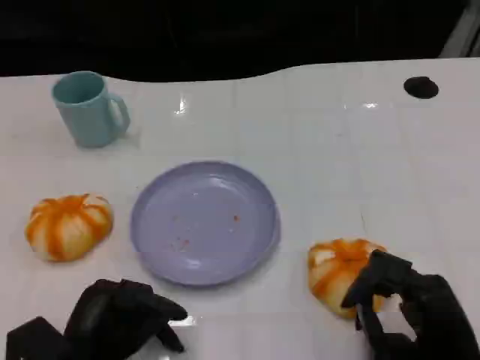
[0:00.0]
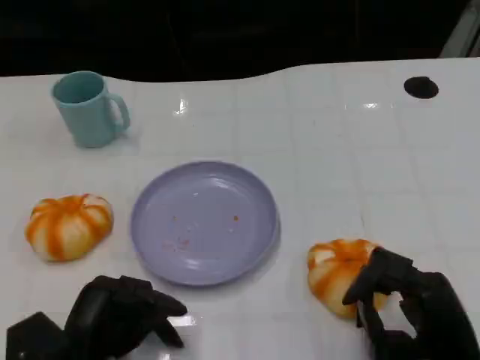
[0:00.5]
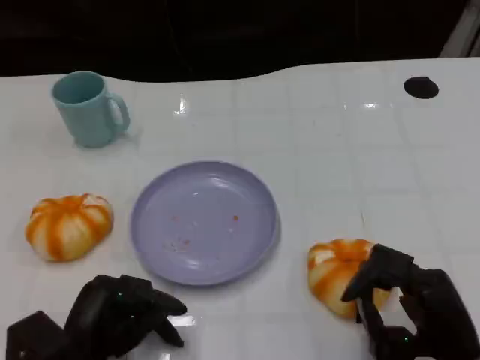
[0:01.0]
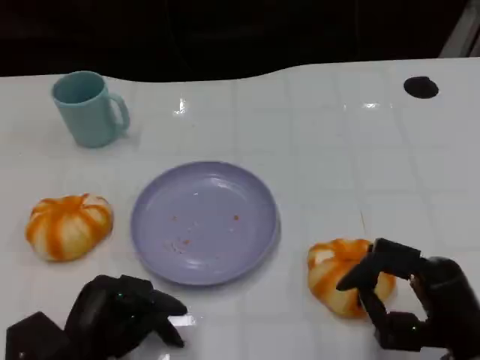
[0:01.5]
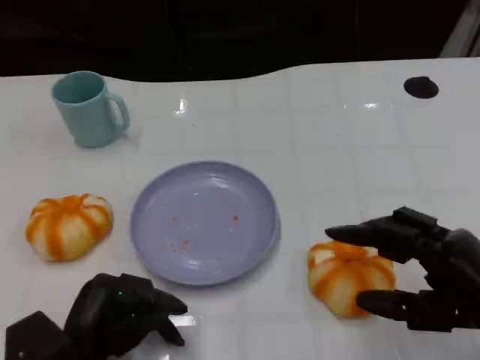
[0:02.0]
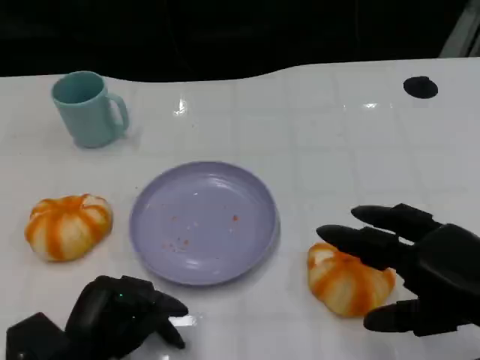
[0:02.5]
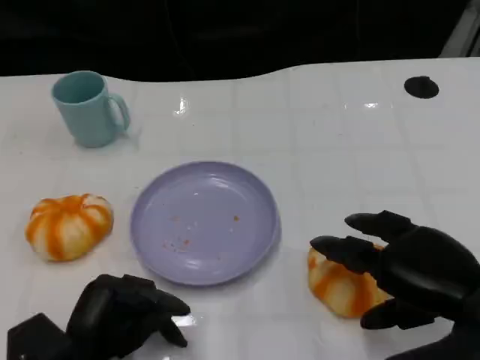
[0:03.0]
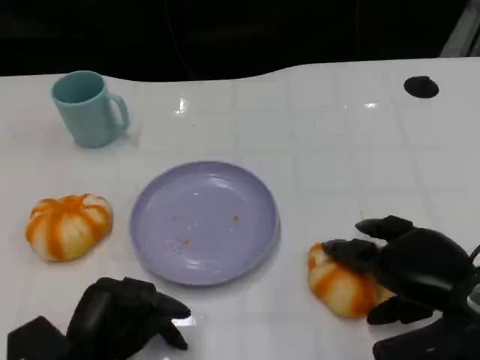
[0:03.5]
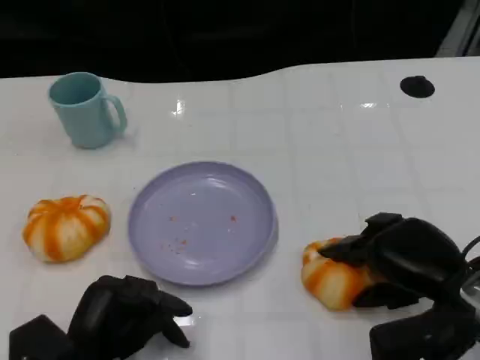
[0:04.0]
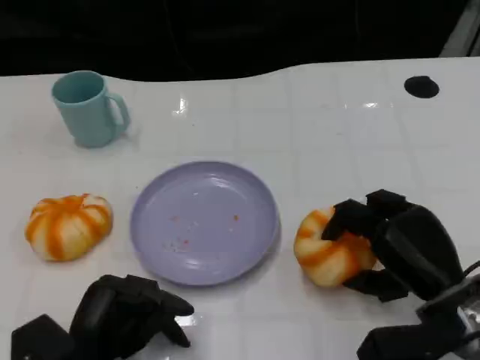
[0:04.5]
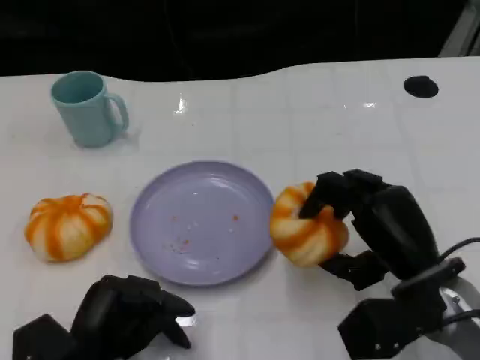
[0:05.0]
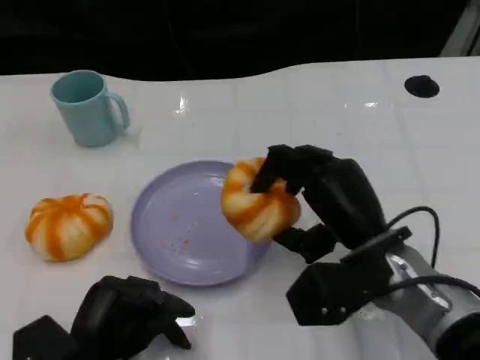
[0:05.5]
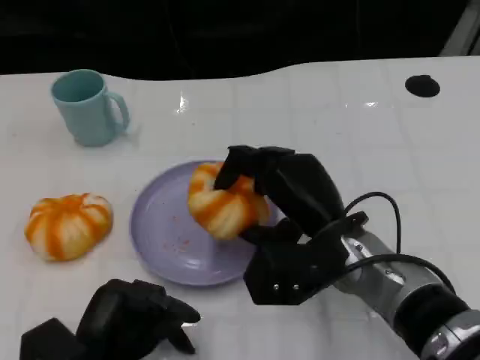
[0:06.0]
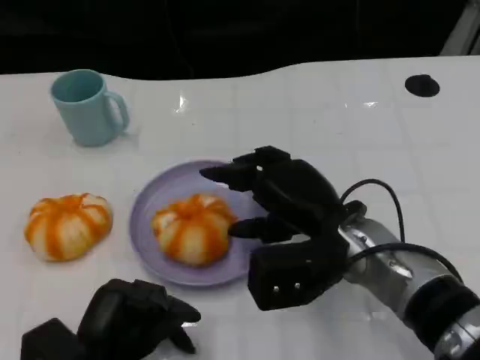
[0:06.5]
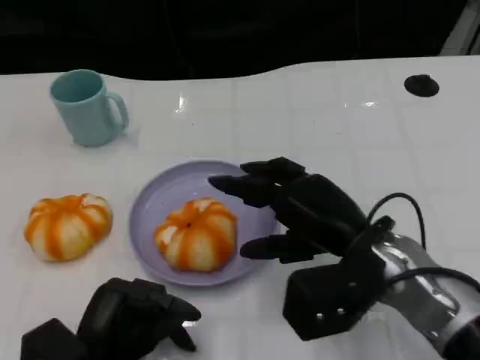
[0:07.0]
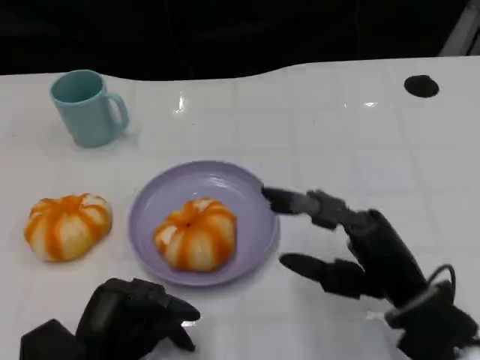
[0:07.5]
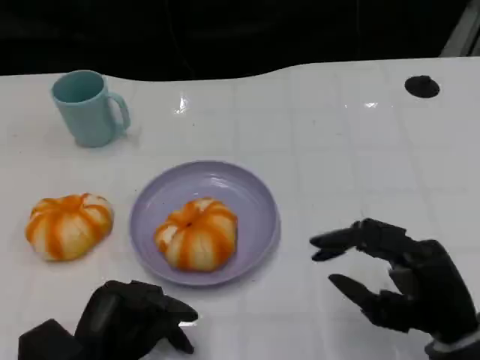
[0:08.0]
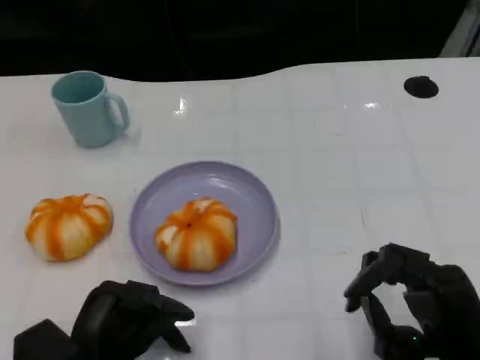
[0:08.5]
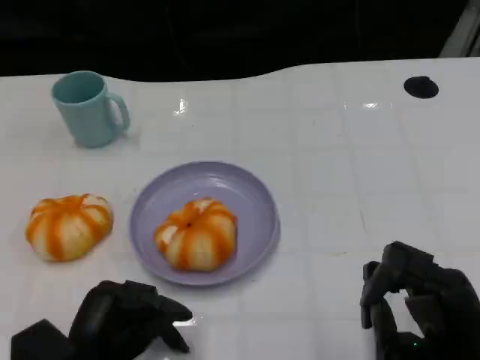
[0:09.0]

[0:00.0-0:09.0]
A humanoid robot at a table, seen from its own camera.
Task of the whole recording: Grasp the bread from the table and place it into the plate.
0:00.0 to 0:02.0: The right hand goes about 10 cm upward.
0:02.0 to 0:04.5: The right hand is displaced downward and forward by approximately 10 cm.
0:04.5 to 0:07.0: The right hand moves to the left and upward, about 10 cm.
0:07.0 to 0:09.0: The right hand heads backward, to the right and downward, covering about 15 cm.

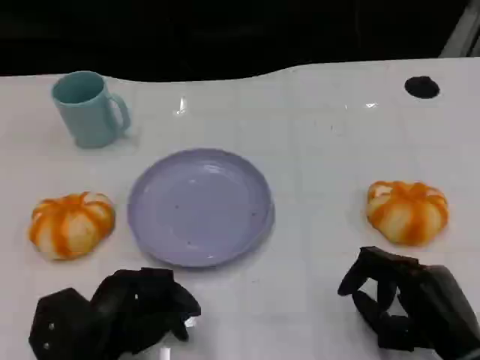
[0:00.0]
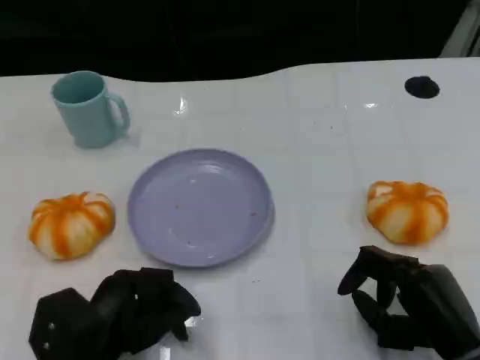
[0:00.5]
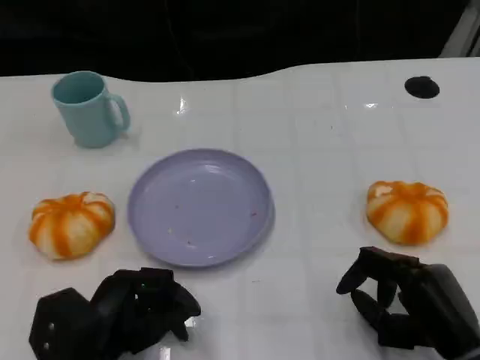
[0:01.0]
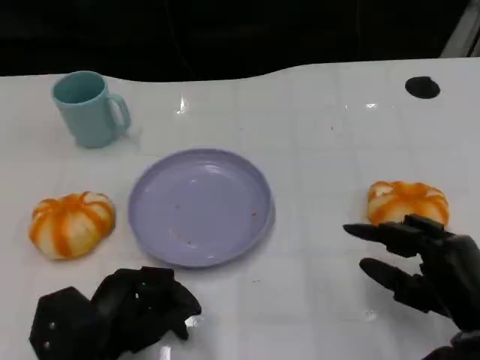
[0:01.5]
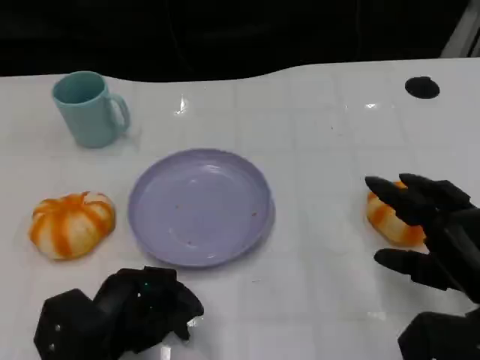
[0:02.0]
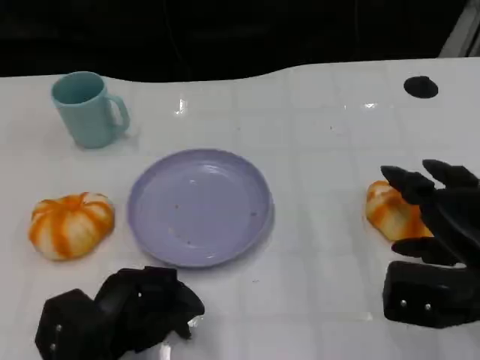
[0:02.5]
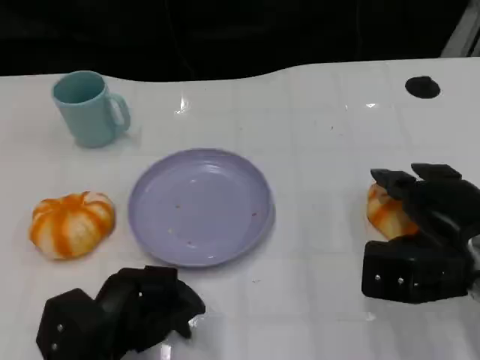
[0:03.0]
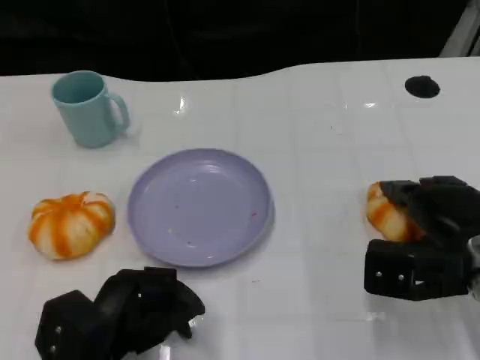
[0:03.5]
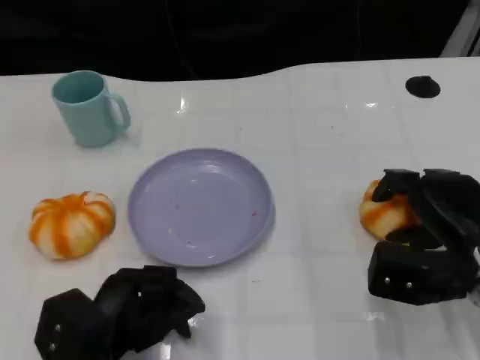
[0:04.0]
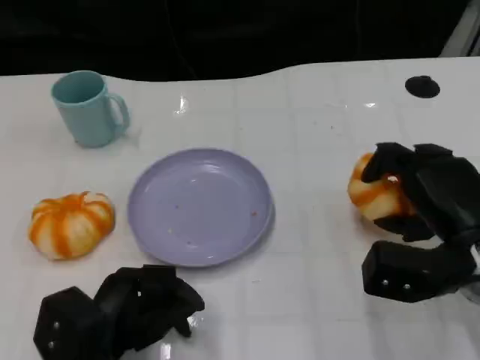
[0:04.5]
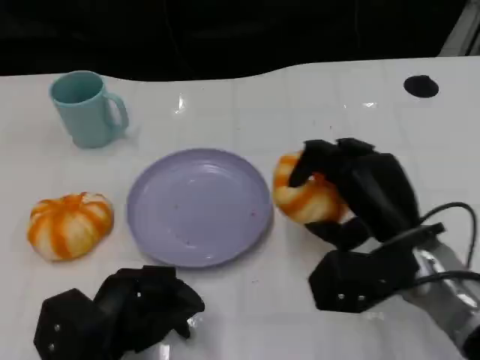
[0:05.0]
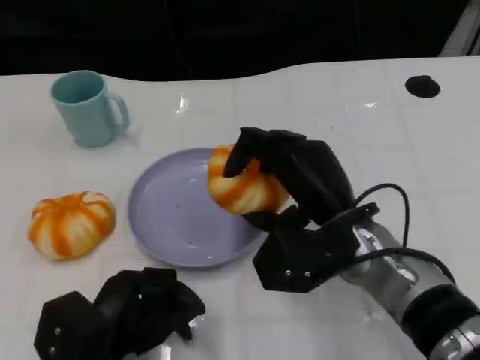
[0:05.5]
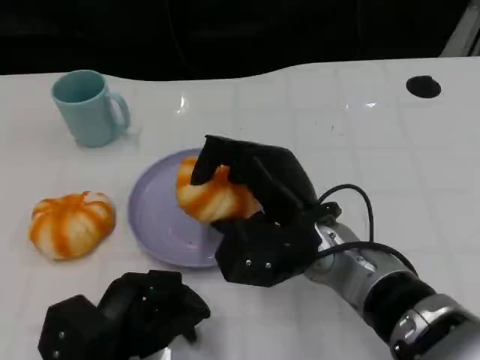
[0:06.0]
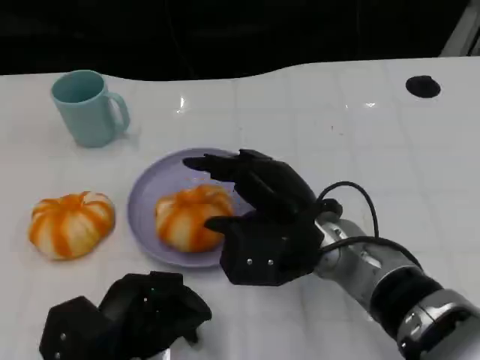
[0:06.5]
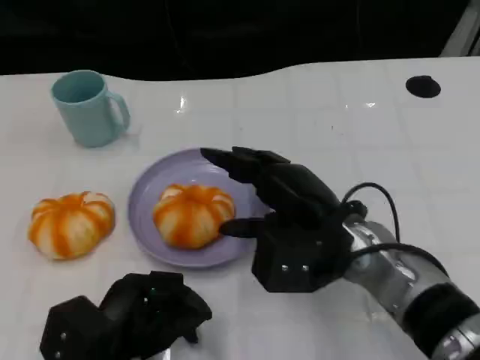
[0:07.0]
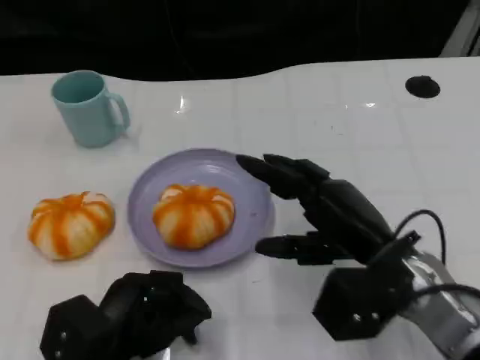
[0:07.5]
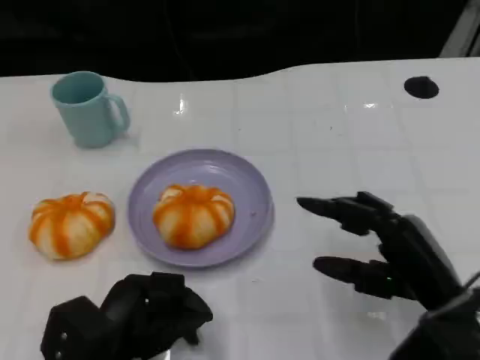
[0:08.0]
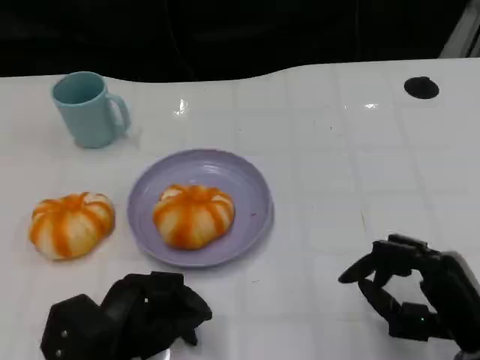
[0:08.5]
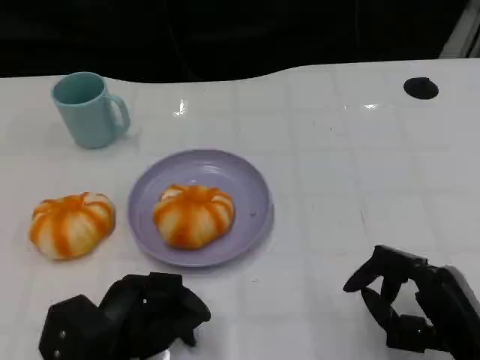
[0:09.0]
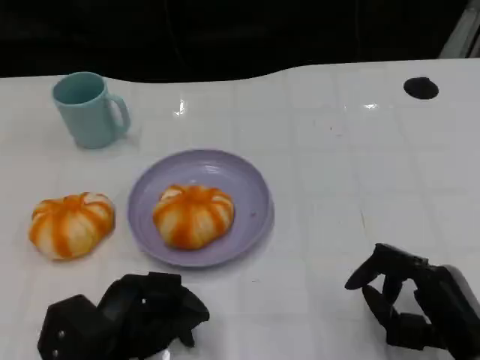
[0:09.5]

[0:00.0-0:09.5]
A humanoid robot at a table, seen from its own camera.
Task of the whole recording: Grasp the bread from the table and place it into the plate.
0:00.0 to 0:02.0: The right hand moves roughly 5 cm.
0:02.0 to 0:04.0: The right hand goes roughly 5 cm forward.
0:04.0 to 0:05.5: The right hand goes about 15 cm to the left.
0:05.5 to 0:07.5: The right hand is displaced to the right by some 5 cm.
0:07.5 to 0:09.5: The right hand goes some 10 cm backward, to the right and downward.

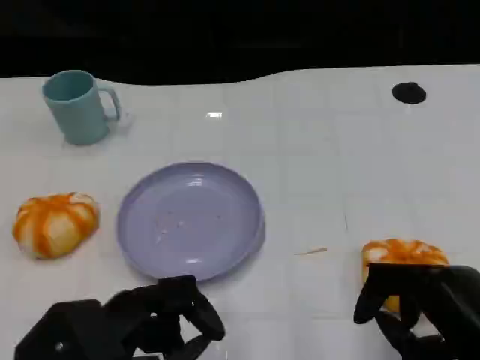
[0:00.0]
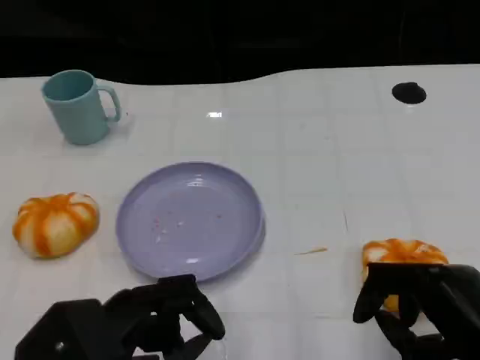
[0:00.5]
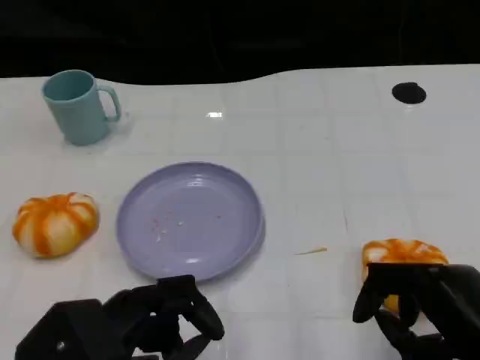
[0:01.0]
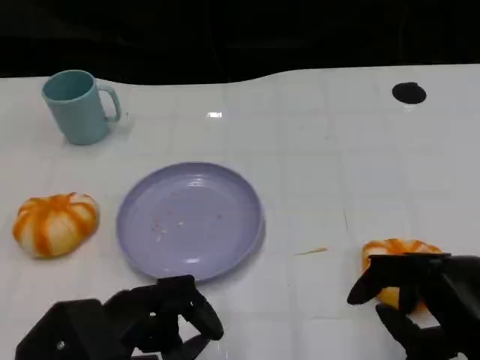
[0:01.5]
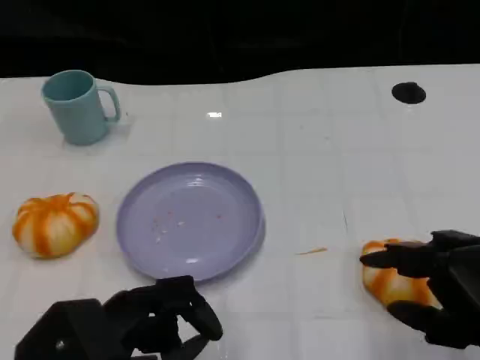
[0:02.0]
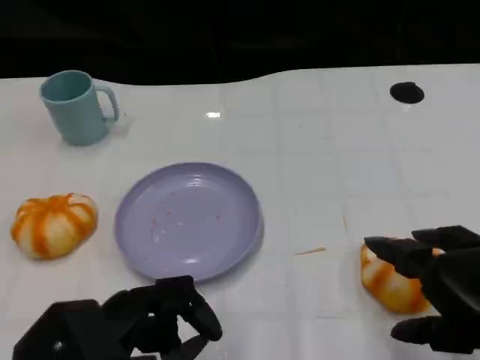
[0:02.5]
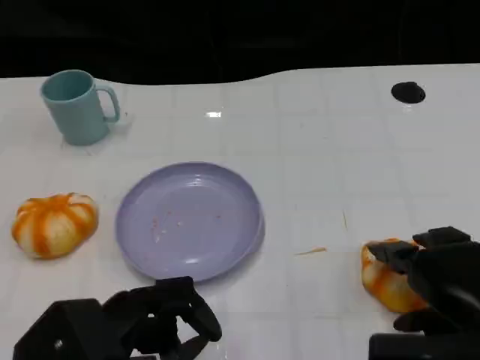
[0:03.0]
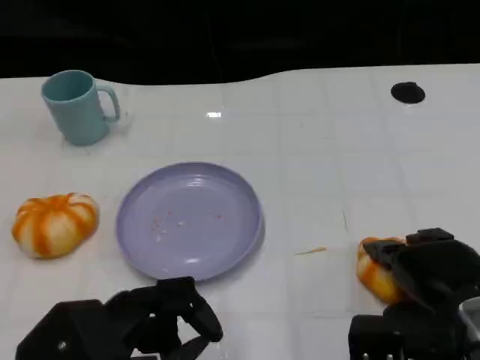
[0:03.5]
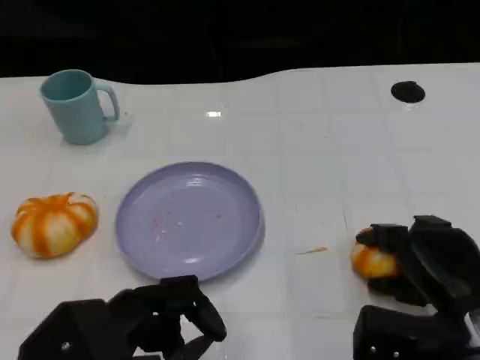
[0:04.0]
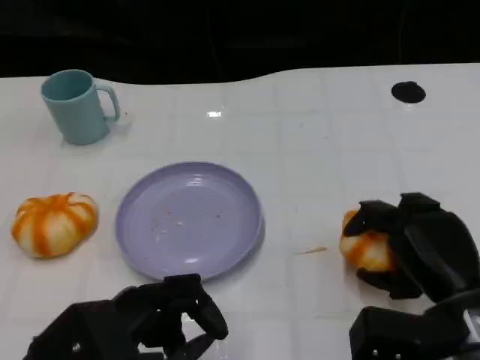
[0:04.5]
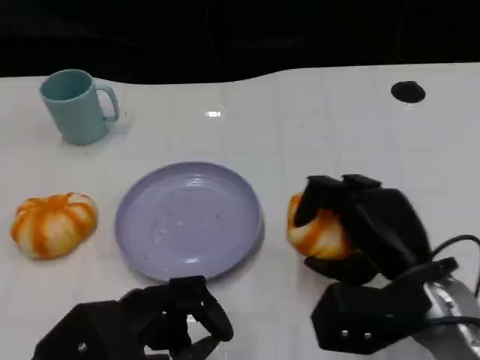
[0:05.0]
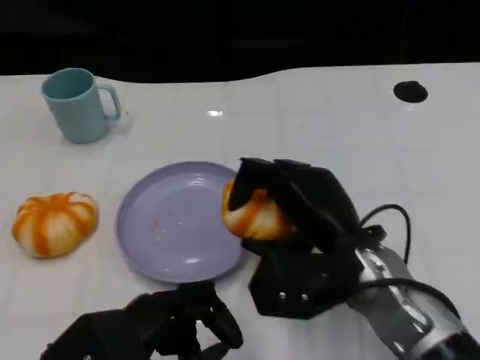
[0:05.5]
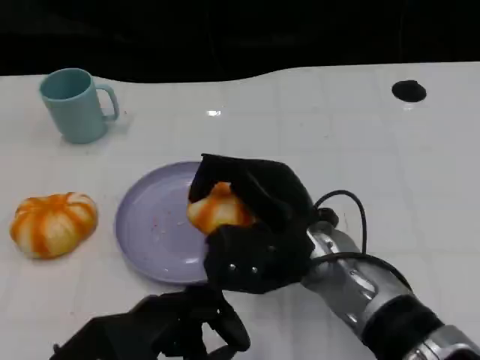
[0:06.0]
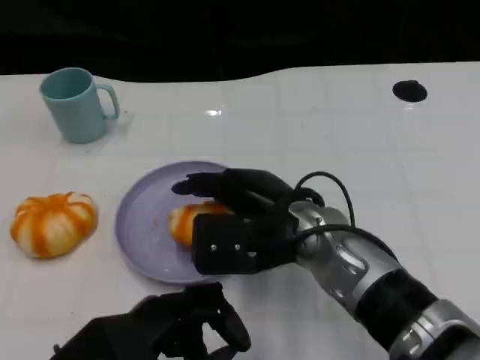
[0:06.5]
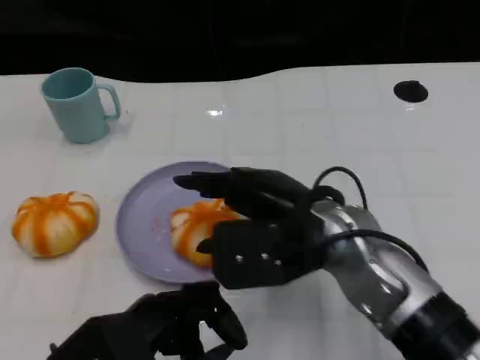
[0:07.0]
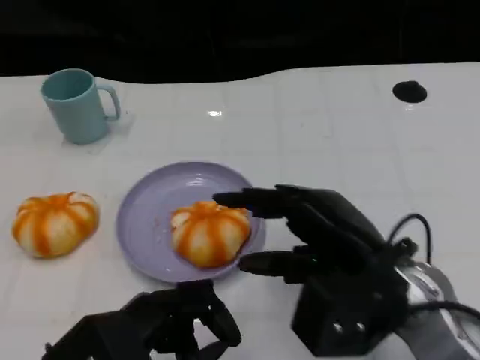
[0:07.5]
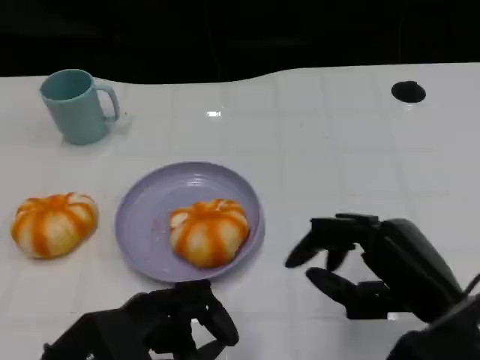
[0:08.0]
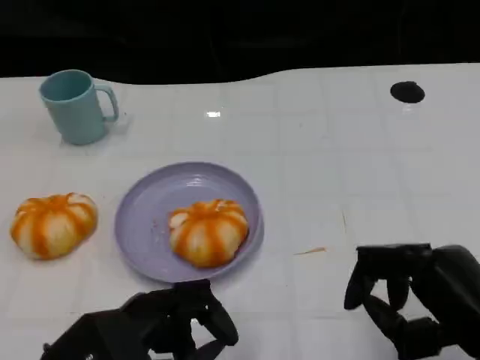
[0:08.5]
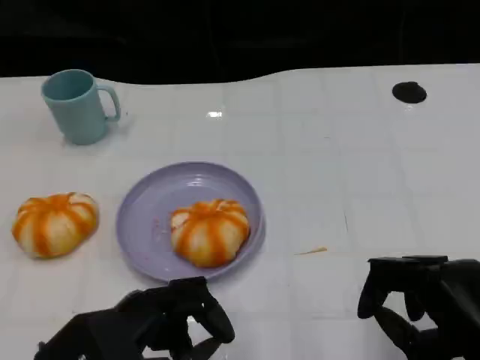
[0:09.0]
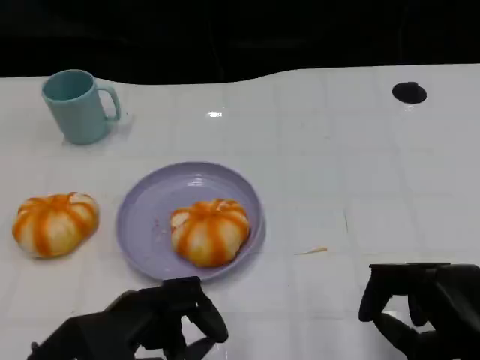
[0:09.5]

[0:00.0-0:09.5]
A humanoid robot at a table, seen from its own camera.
Task of the whole recording: Grasp the bread from the table and place it into the plate.
0:02.0 to 0:04.0: The right hand shifts roughly 10 cm downward and forward.
0:04.0 to 0:05.5: The right hand heads to the left and upward, covering roughly 15 cm.
0:05.5 to 0:07.5: The right hand changes place by about 5 cm.
0:07.5 to 0:09.5: The right hand moves to the right and backward, roughly 10 cm.
